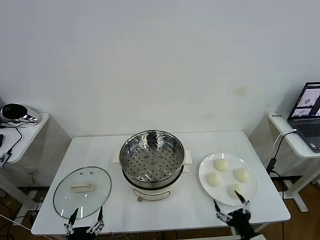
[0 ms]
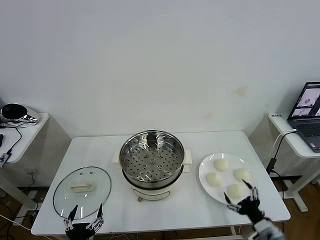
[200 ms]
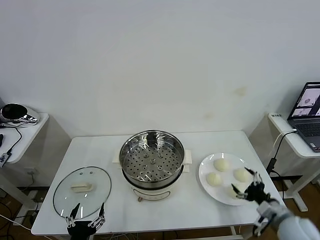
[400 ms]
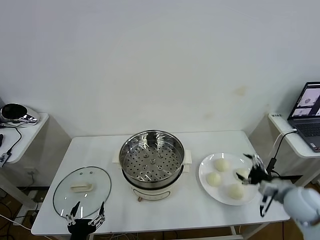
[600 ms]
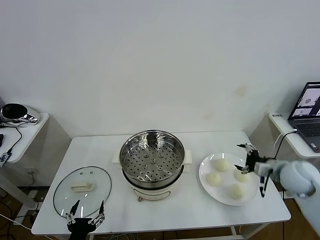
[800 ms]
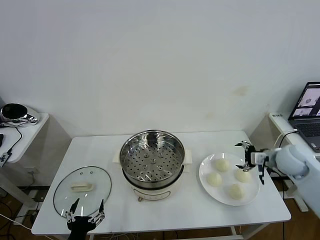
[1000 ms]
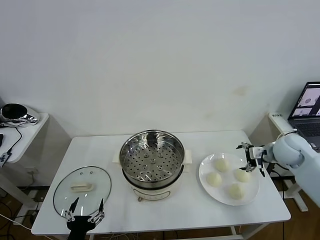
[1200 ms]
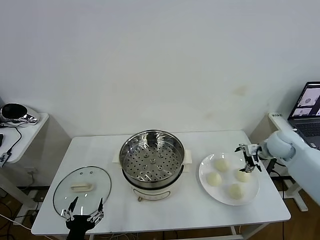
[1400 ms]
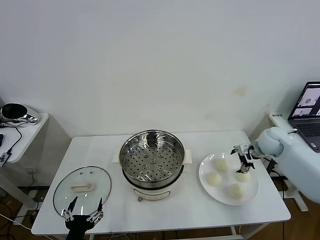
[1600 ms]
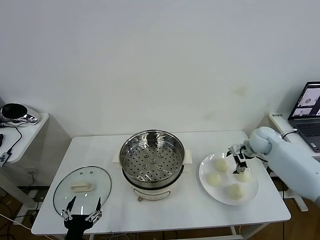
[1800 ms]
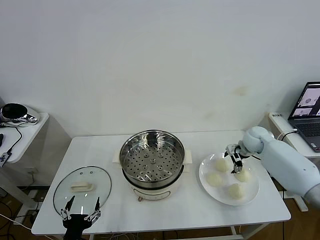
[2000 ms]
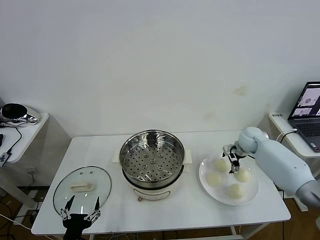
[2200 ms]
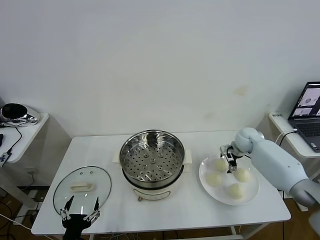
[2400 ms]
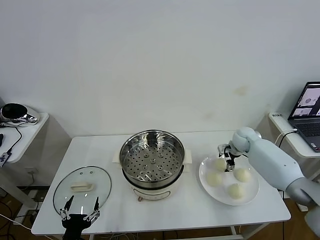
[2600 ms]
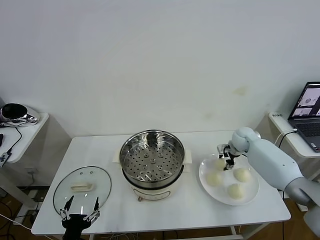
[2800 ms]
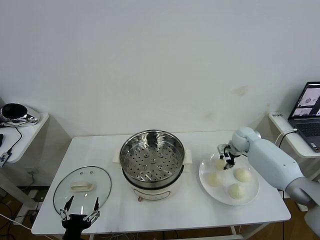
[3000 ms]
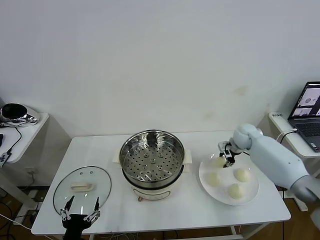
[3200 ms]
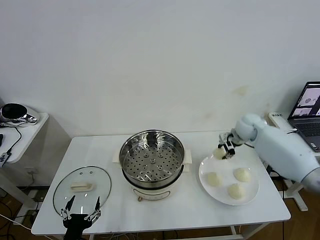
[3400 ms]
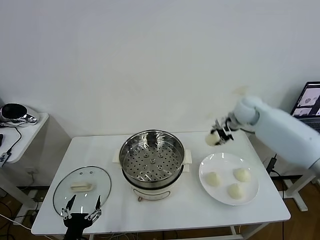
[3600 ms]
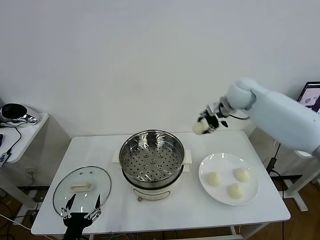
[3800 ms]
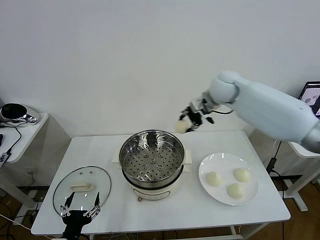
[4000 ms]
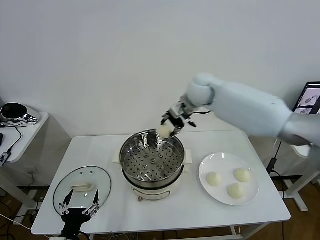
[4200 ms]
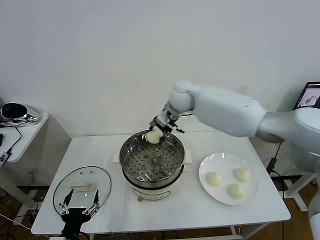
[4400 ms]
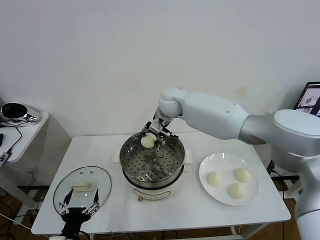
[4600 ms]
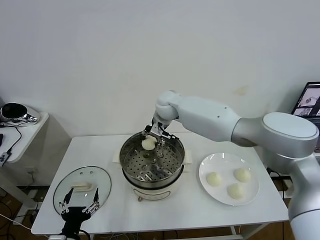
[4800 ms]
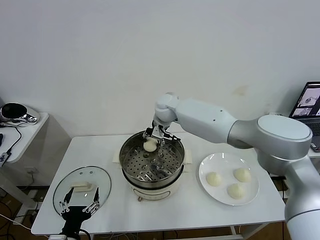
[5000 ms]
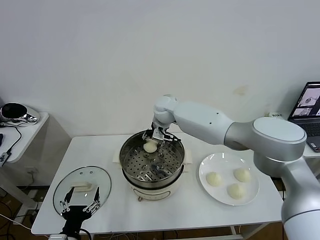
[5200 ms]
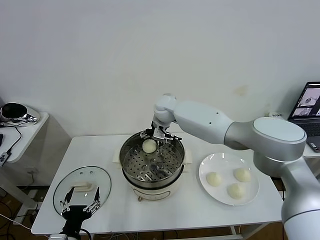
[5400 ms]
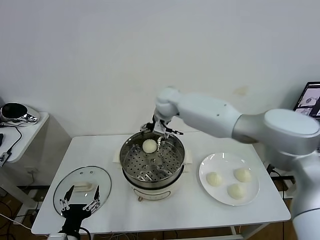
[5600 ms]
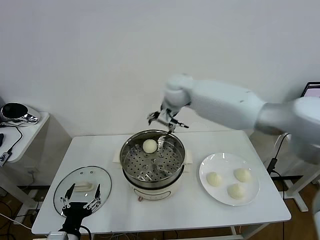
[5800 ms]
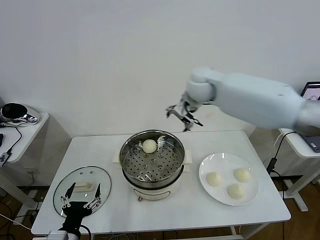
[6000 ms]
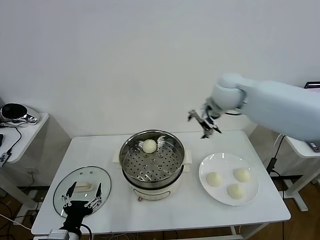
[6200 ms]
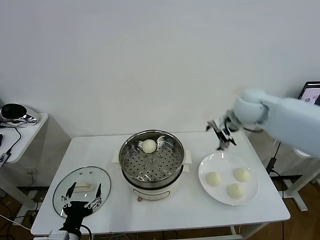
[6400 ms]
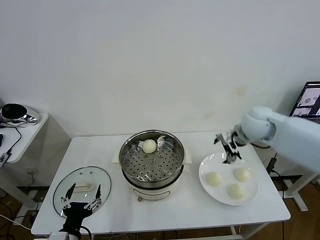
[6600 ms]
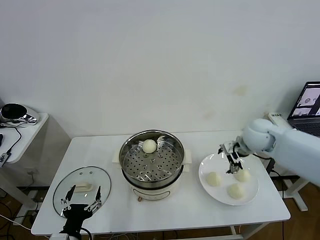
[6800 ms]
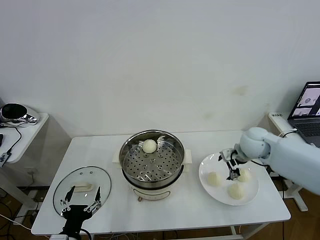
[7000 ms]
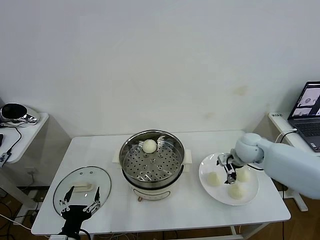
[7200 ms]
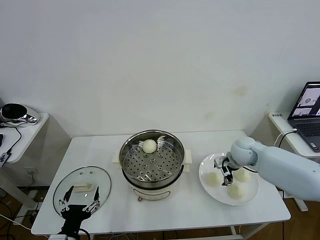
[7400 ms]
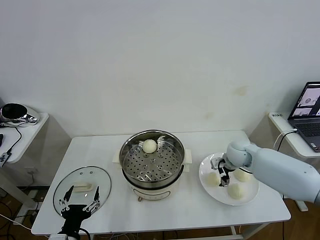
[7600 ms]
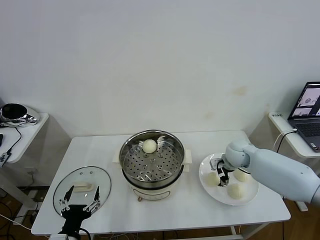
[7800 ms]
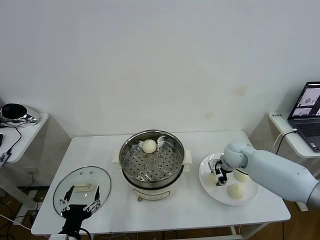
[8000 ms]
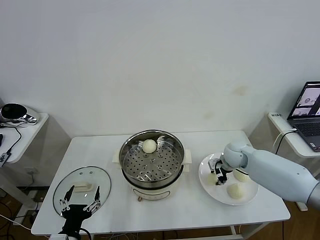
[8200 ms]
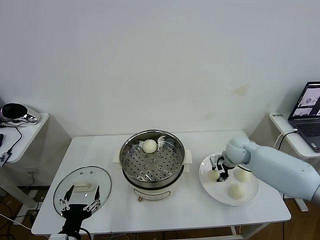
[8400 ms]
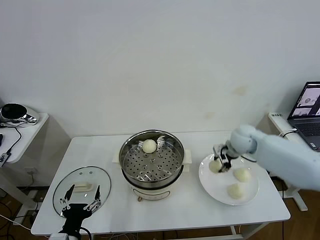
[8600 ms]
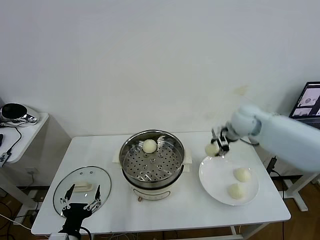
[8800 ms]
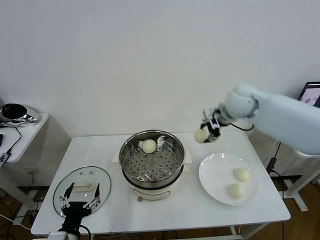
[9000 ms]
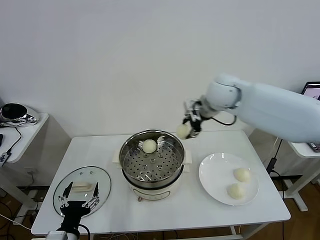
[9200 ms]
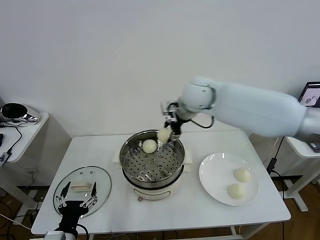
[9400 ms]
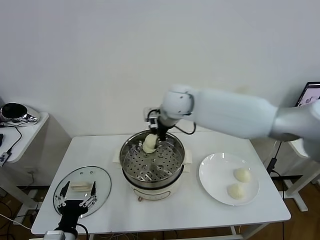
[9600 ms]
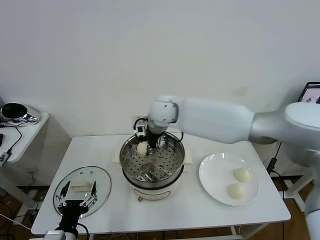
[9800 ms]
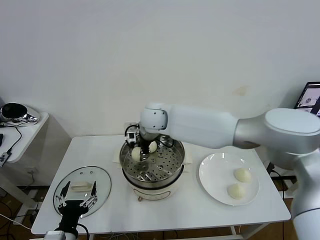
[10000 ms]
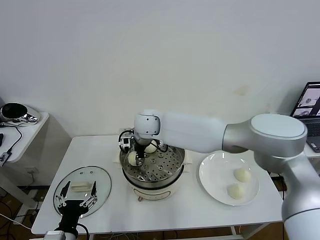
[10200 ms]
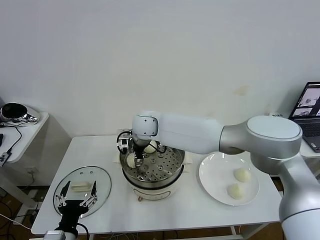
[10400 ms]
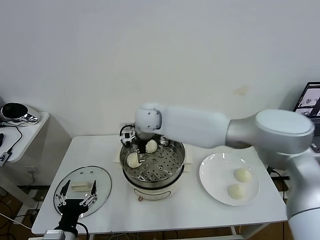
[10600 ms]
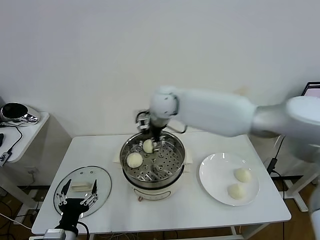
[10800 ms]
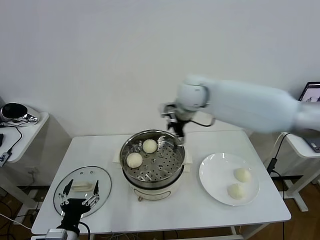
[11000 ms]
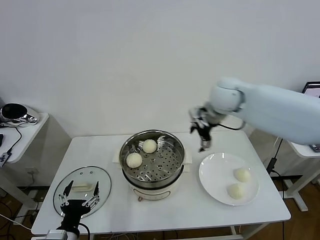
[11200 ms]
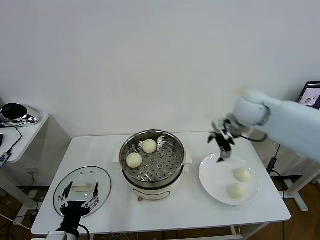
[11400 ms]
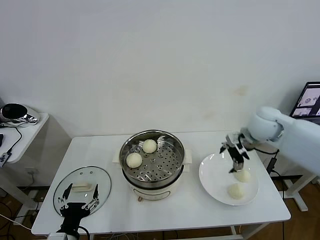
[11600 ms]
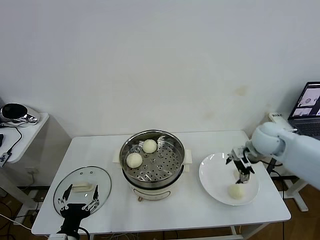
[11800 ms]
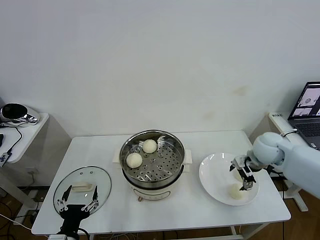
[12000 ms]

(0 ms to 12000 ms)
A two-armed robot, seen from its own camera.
Task of the whole recording: take steamed baozi put them in steamer then cover it.
Step, 0 ms - 3000 ms: Grasp the baozi in the plate with right gripper.
Step, 3200 ms - 5400 ms: Place the baozi on the steamer with right gripper.
Step, 5600 ms - 8200 ms: Grasp the baozi in the plate with right gripper.
Step, 8400 ms - 10400 ms: Place the baozi on the steamer with right gripper.
1600 ms - 3000 ms: The right gripper changes place by approximately 10 cm, and closes its fingers.
3000 ms - 4400 ms: The right gripper heads to the left and upward, covering some 35 cm.
4400 ms - 6000 ms: The right gripper travels to the right and upward by approximately 15 cm, and opens up.
6000 ms - 7600 ms: The right gripper heads downward and to the right, covering roughly 25 cm.
7600 ms - 9000 ms: The right gripper is displaced upward by roughly 25 cm, and closes up.
9000 ms - 10400 ms: The right gripper goes approximately 25 cm to the left, and opens its fingers.
10400 ms - 12000 ms: The right gripper heads to the right, covering some 40 cm.

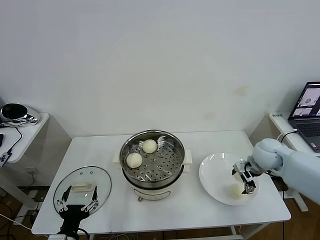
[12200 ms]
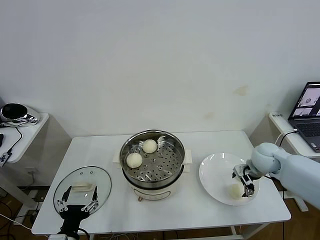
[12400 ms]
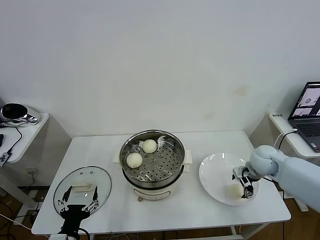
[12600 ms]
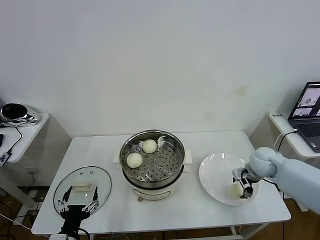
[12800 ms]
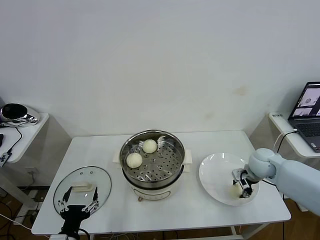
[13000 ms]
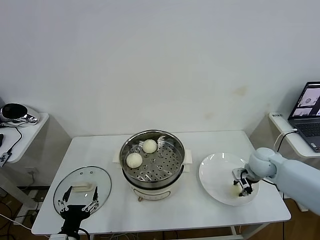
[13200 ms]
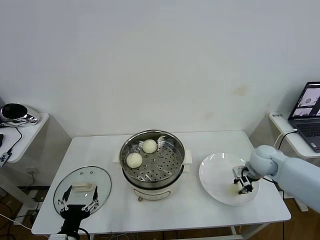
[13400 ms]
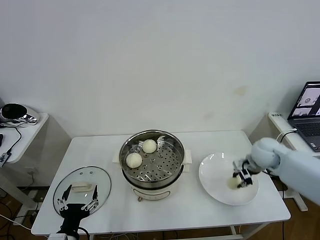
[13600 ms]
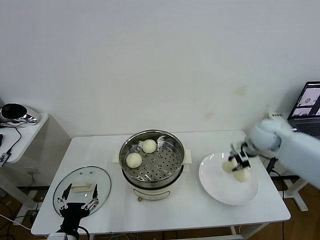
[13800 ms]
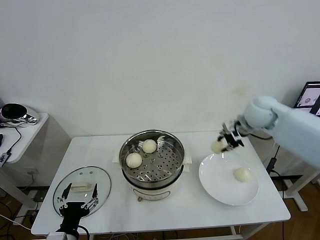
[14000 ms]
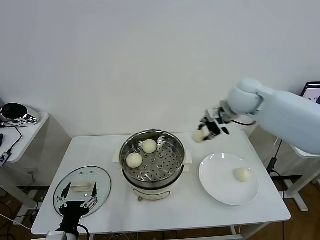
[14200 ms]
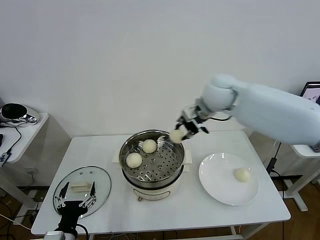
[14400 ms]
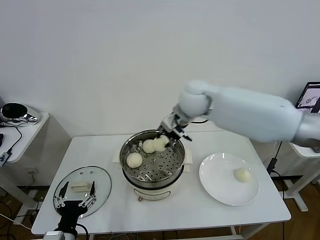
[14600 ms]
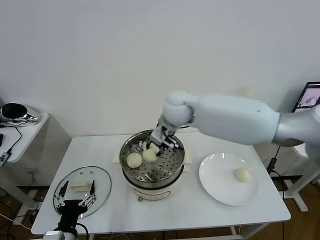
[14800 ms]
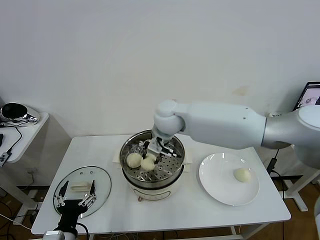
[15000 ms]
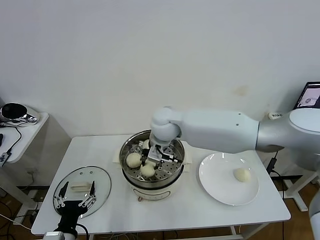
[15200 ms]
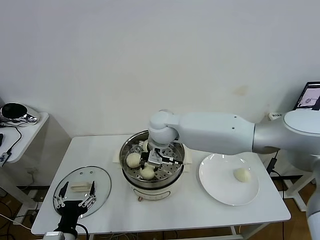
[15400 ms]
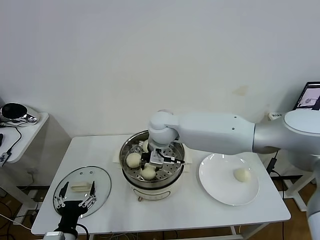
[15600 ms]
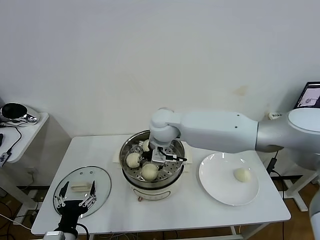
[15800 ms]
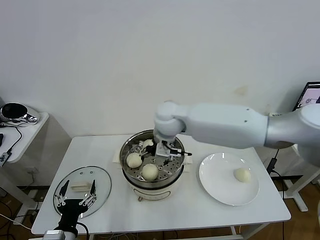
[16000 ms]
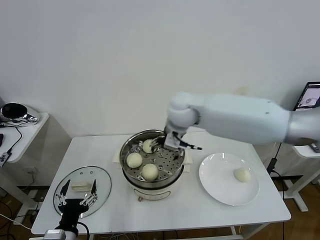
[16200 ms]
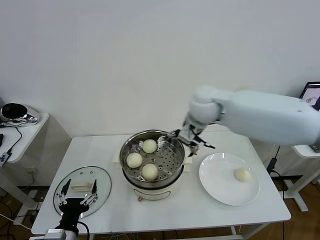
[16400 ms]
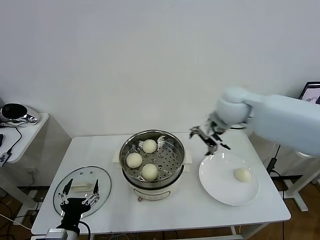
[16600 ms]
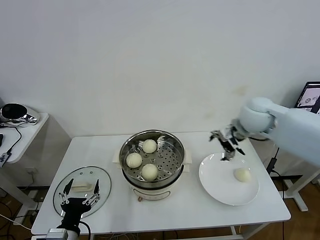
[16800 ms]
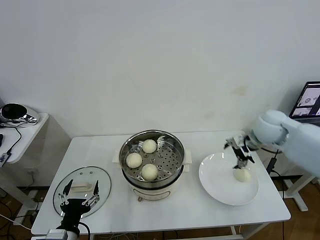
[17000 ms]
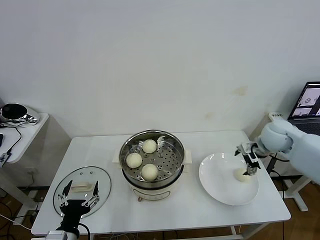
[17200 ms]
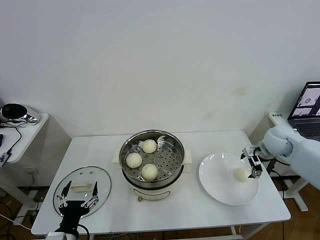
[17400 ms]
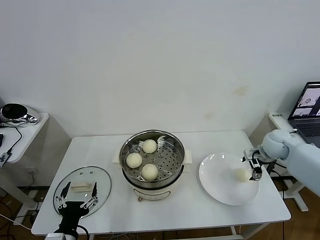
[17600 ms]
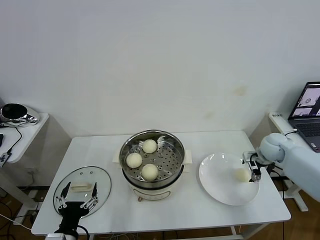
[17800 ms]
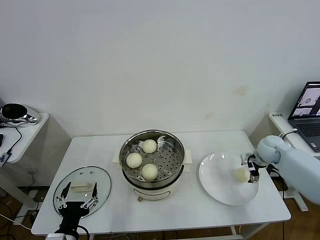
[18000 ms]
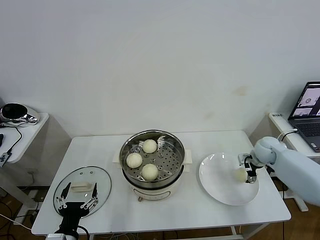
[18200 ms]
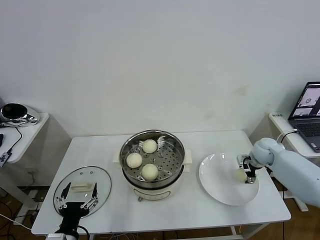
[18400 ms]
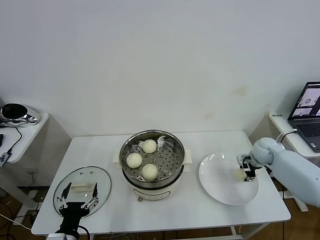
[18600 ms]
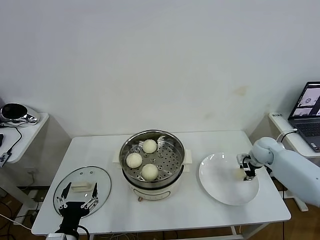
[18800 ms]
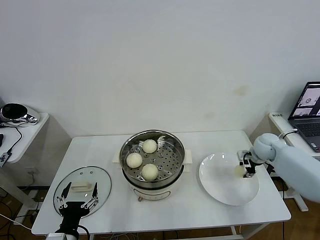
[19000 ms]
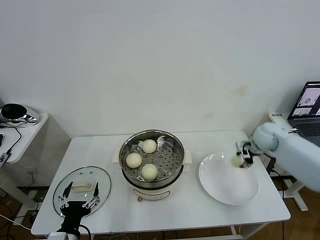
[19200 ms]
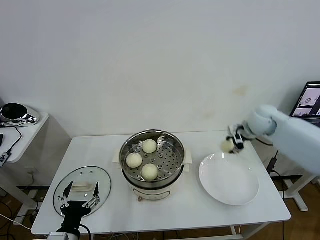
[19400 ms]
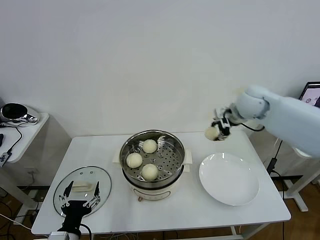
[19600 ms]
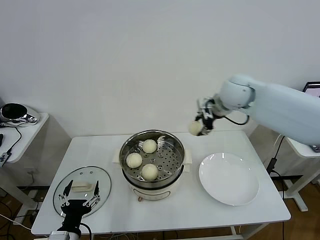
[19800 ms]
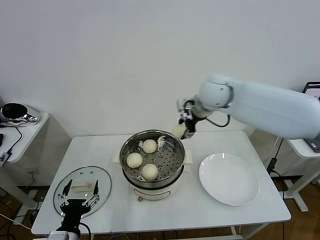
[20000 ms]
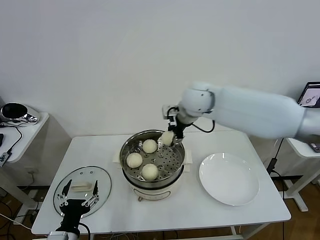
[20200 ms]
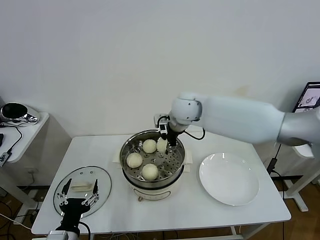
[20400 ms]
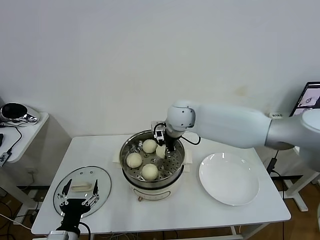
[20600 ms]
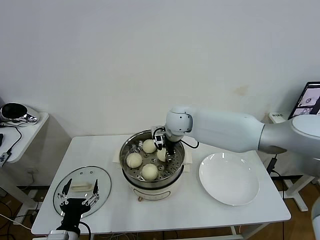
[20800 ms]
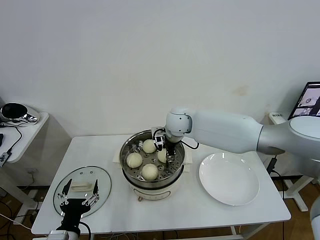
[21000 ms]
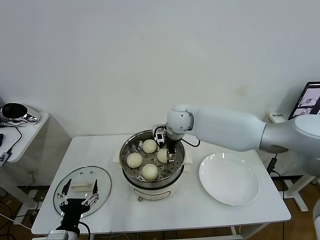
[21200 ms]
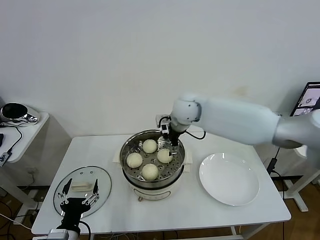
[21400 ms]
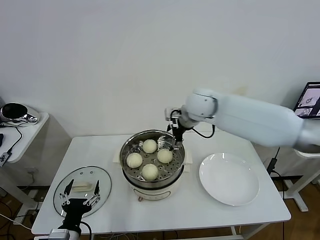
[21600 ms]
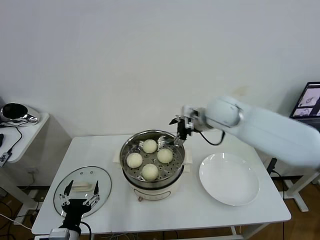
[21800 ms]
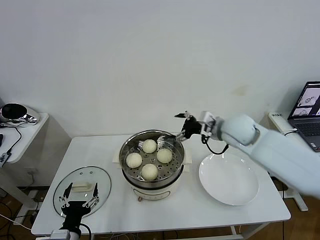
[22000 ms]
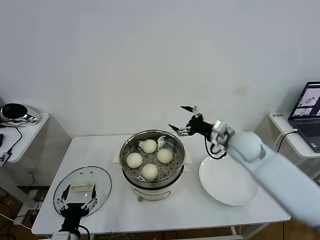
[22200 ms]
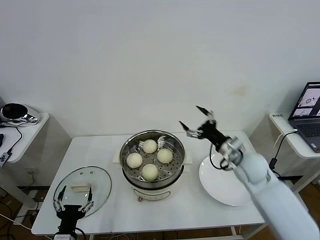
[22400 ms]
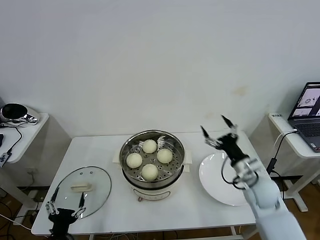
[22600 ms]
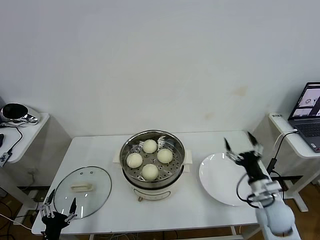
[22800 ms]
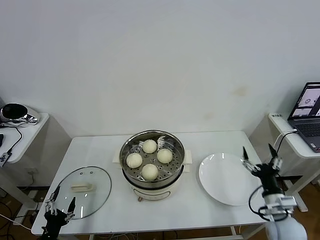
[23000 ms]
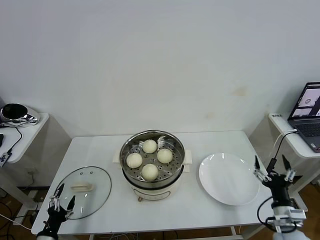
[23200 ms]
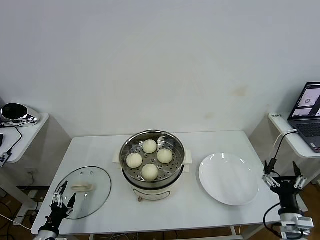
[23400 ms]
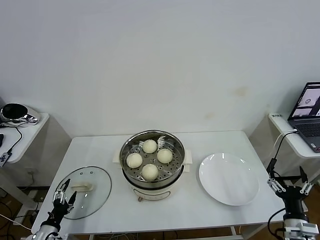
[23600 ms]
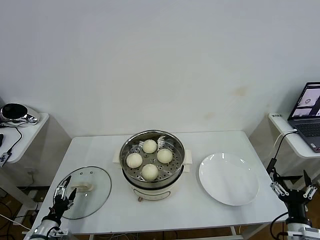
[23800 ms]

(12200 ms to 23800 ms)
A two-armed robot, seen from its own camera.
Task of the whole recording: take steamed baozi put them in steamer then cover it.
Step, 13200 ms - 16000 ms: Place the baozi on the steamer with right gripper.
Step, 16400 ms - 18600 ms: Grasp the baozi in the plate with right gripper.
Step, 18800 ms - 21400 ms: Place the baozi on the steamer with right gripper.
12200 ms - 13600 ms: The right gripper closes.
13600 ms - 15000 ms: The right gripper shifts some 35 cm to the left.
15000 ms - 16600 ms: The right gripper goes some 20 cm to the right, and opens its fingers.
16600 ms - 18000 ms: The right gripper heads downward and to the right, covering approximately 30 cm.
18000 ms - 19400 ms: The right gripper shifts some 15 cm upward and to the left, and closes.
19400 ms - 21000 ms: The right gripper moves to the left, approximately 25 cm.
21000 ms - 22400 ms: The right gripper is displaced to the right and backward by approximately 25 cm, and opens.
22400 ms - 23800 ms: The right gripper goes approximately 30 cm backward, downward and to the right; the left gripper goes about 20 cm to the left, downward and forward.
